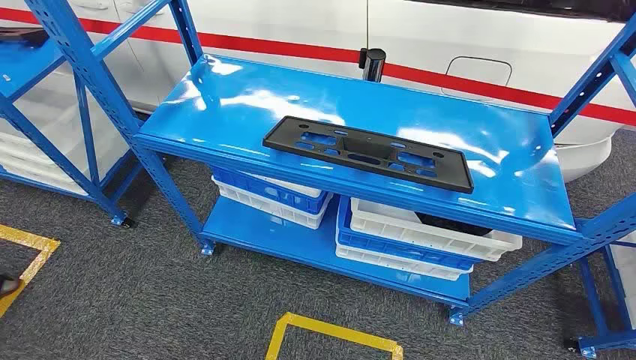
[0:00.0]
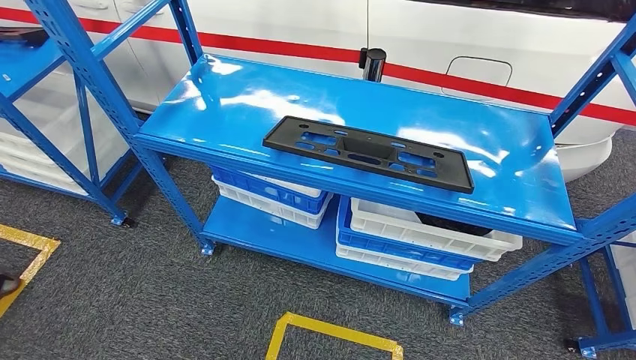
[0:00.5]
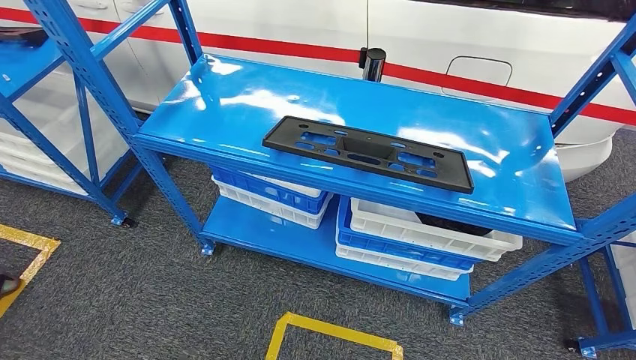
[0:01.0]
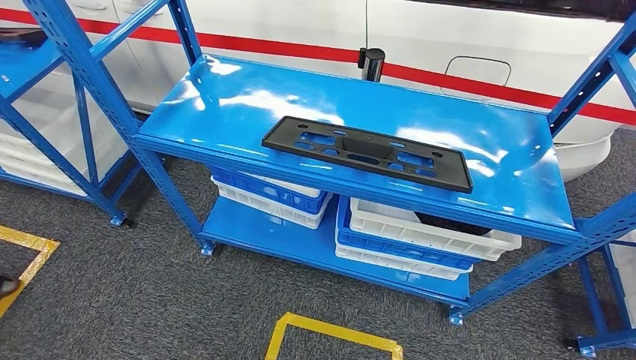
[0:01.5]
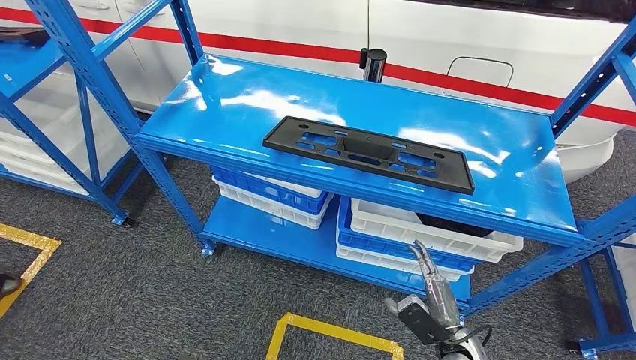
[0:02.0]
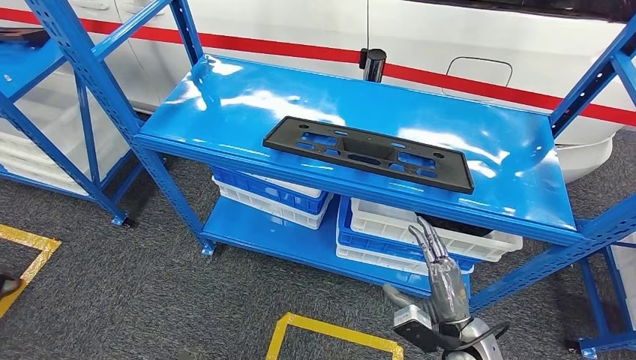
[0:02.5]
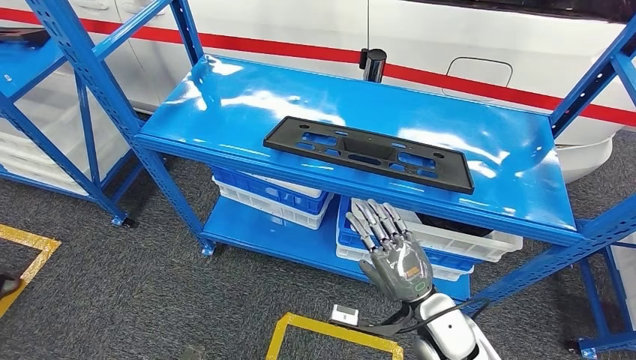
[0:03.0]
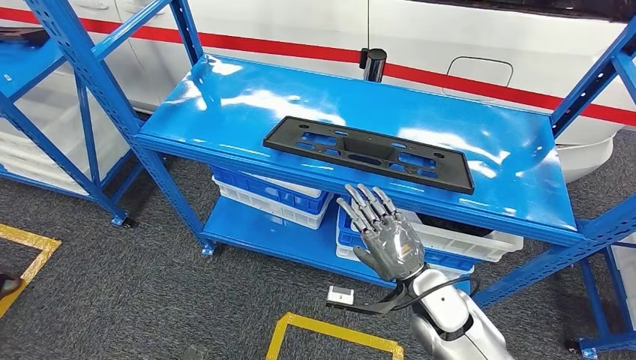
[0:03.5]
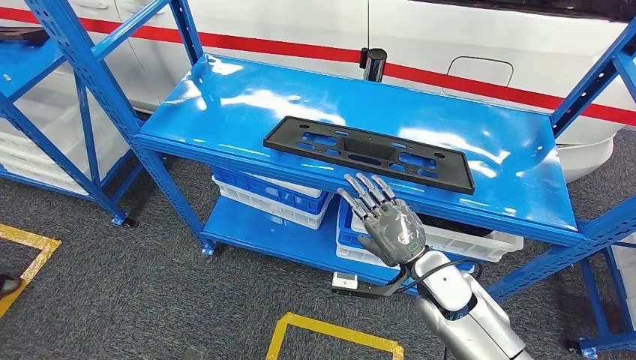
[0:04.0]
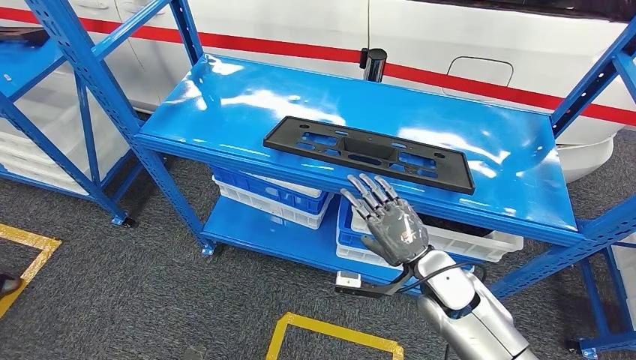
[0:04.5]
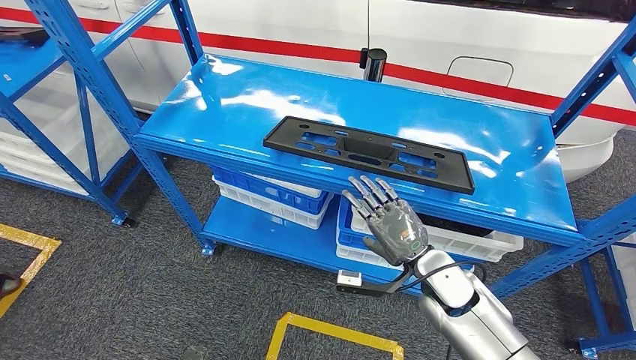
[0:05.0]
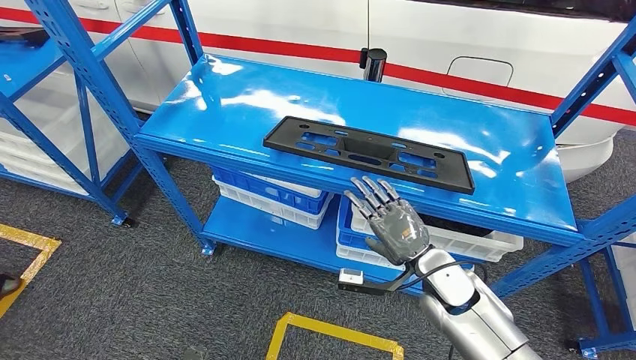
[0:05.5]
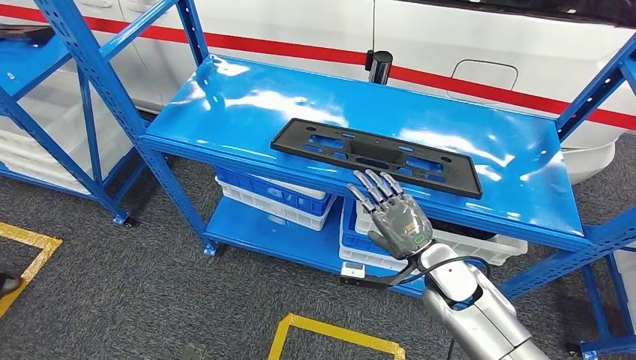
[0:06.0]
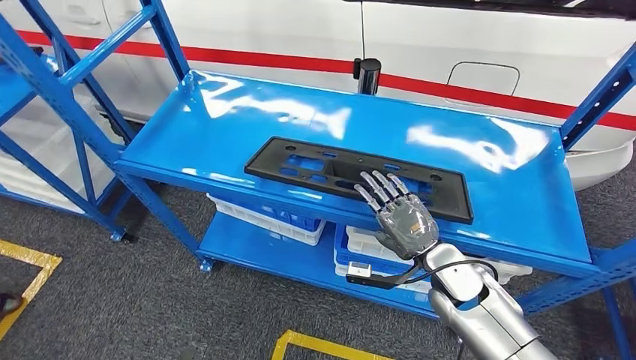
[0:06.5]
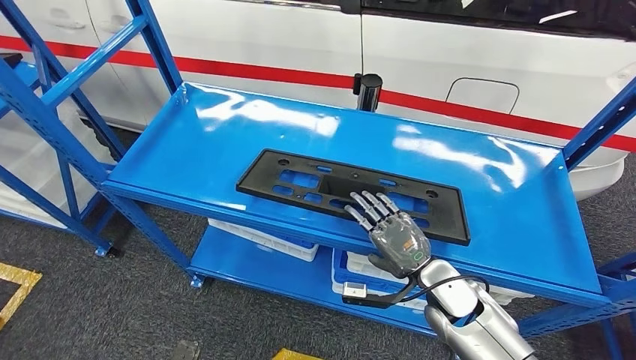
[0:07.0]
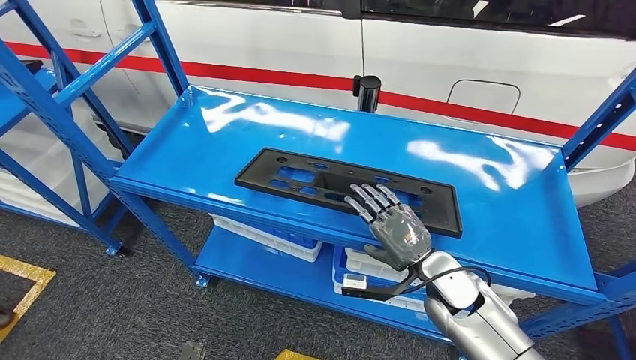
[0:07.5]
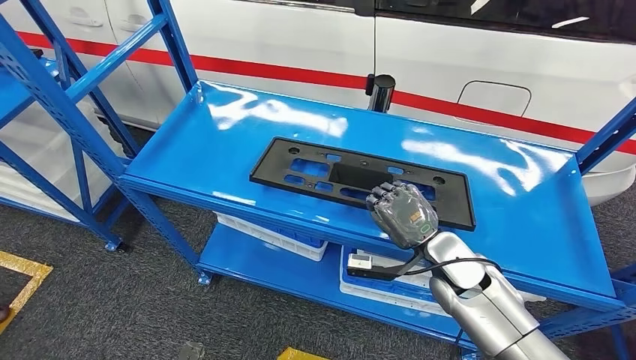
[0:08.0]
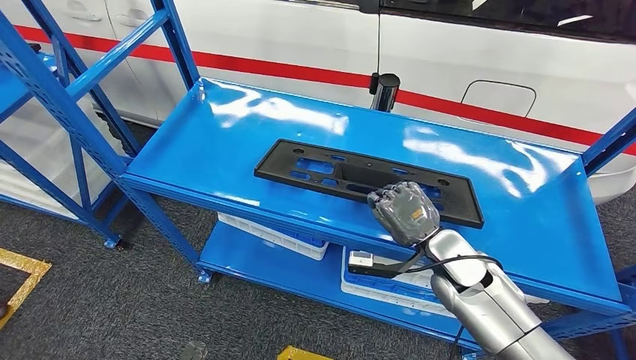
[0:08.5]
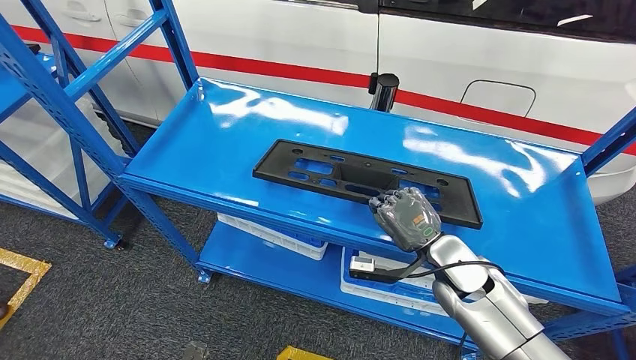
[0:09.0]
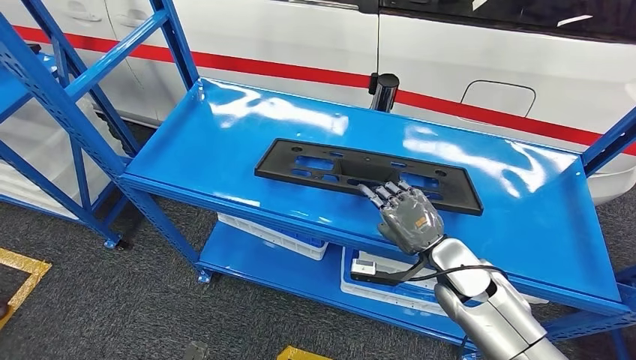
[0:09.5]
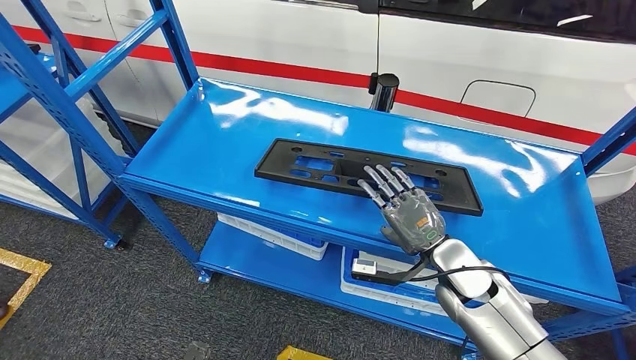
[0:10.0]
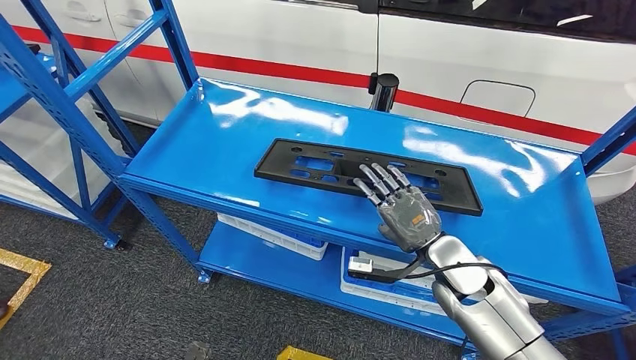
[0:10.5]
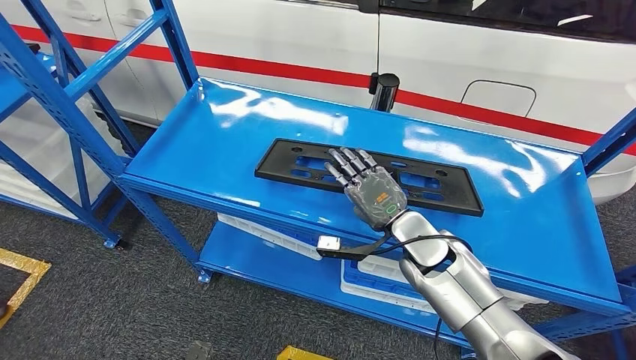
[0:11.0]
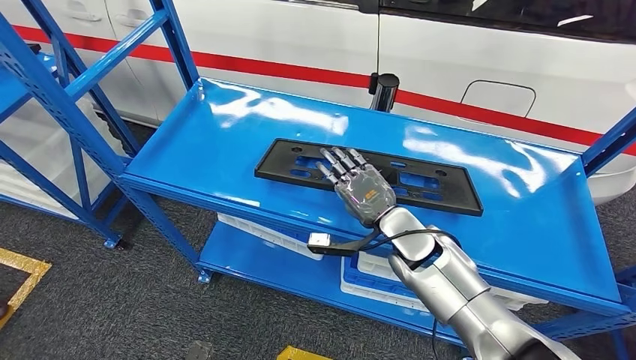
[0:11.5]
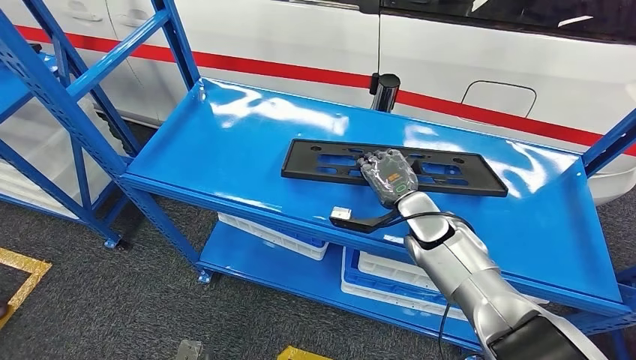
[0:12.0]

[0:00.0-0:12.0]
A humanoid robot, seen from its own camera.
0:02.0 to 0:04.0: The right hand goes some 20 cm upward, forward and to the left.
0:08.0 to 0:10.0: Neither hand changes place.
0:10.0 to 0:12.0: The right hand is displaced forward by approximately 10 cm.

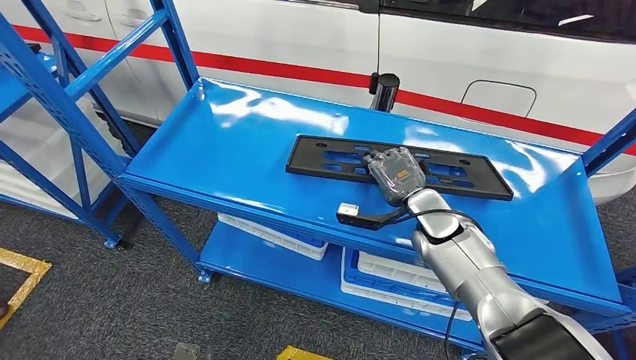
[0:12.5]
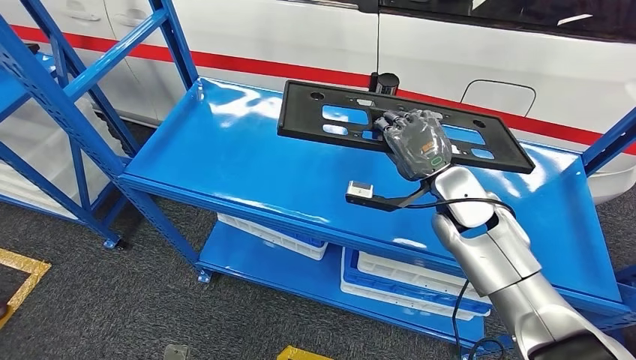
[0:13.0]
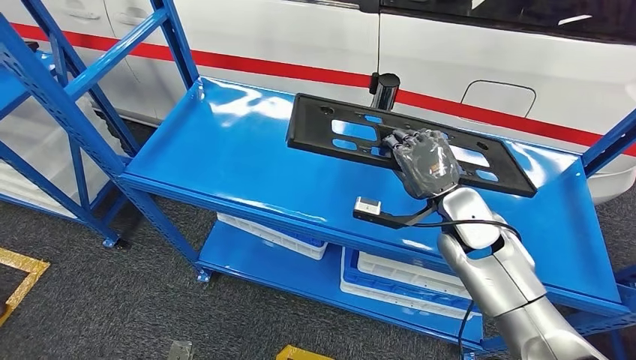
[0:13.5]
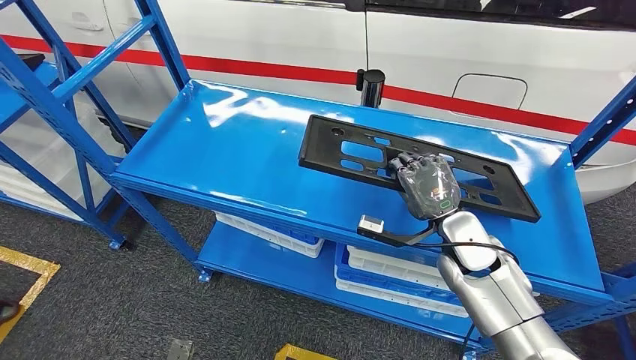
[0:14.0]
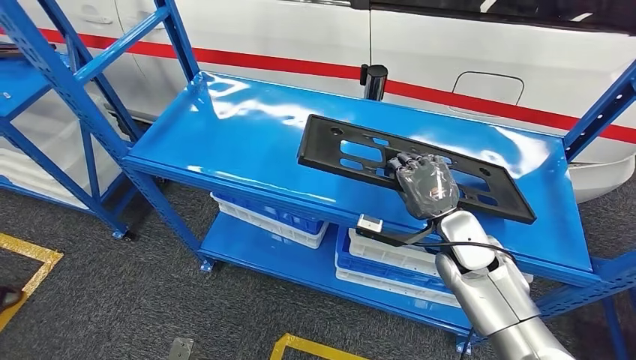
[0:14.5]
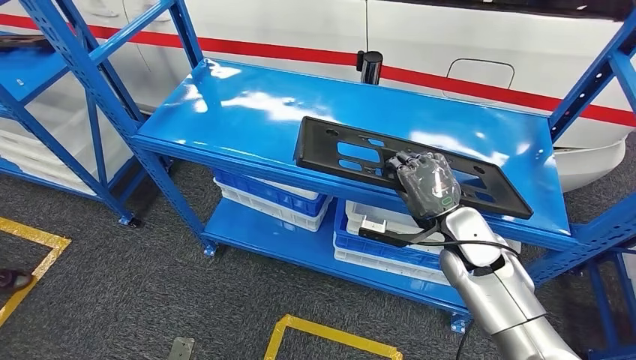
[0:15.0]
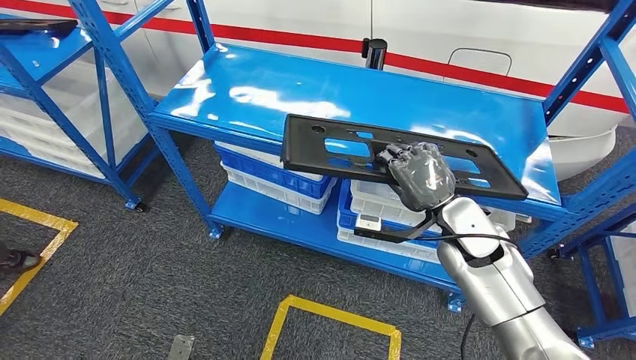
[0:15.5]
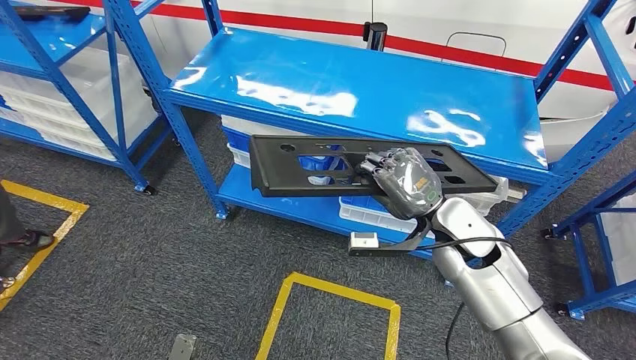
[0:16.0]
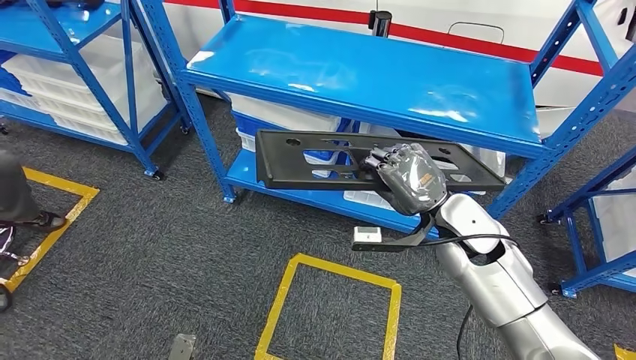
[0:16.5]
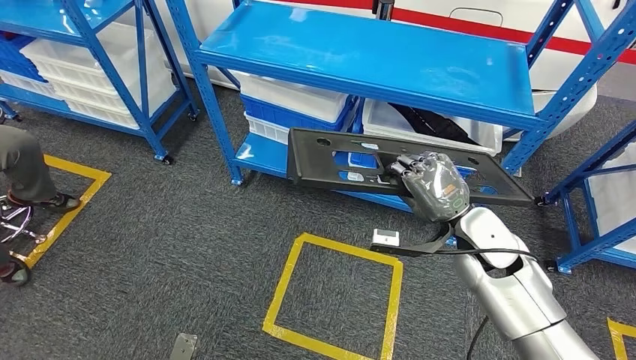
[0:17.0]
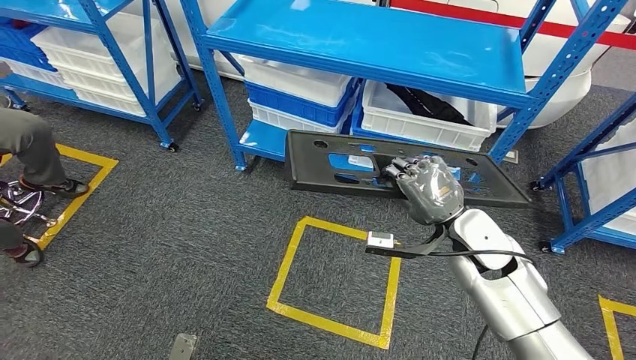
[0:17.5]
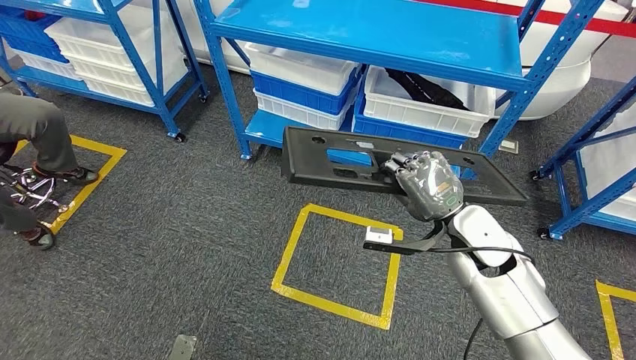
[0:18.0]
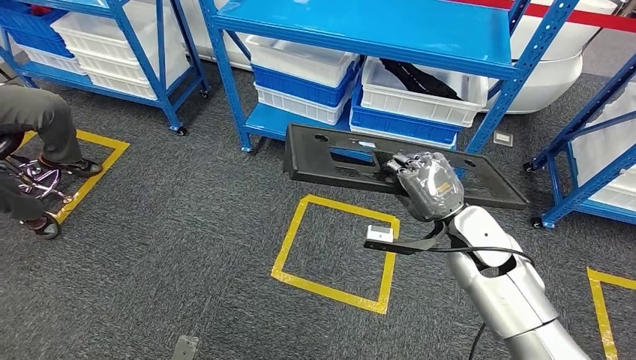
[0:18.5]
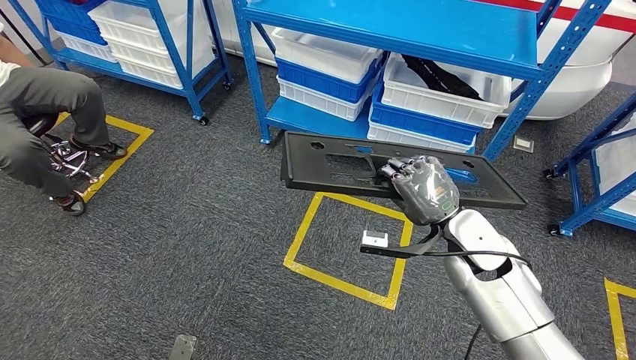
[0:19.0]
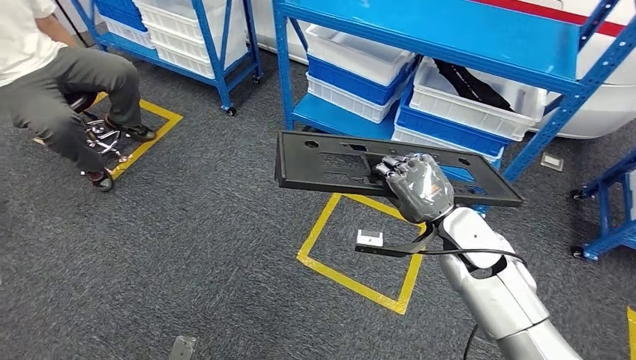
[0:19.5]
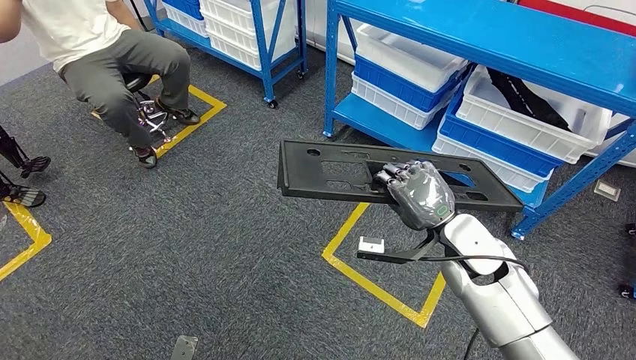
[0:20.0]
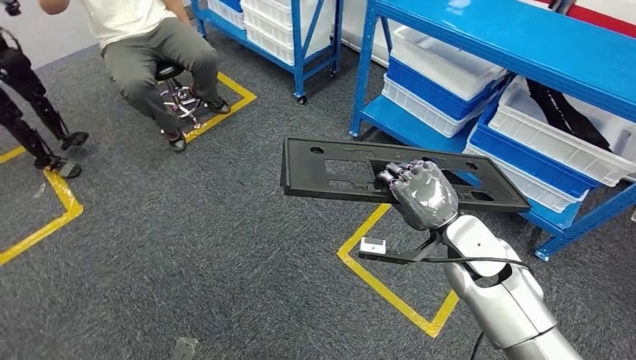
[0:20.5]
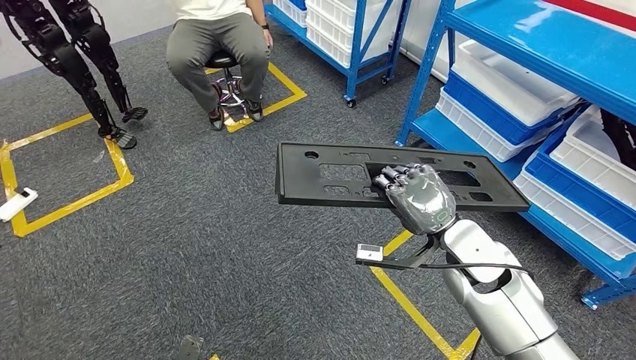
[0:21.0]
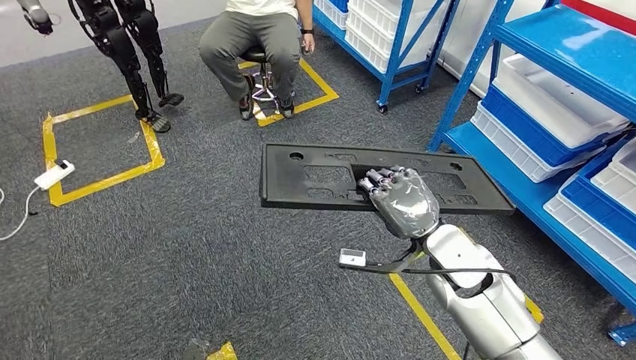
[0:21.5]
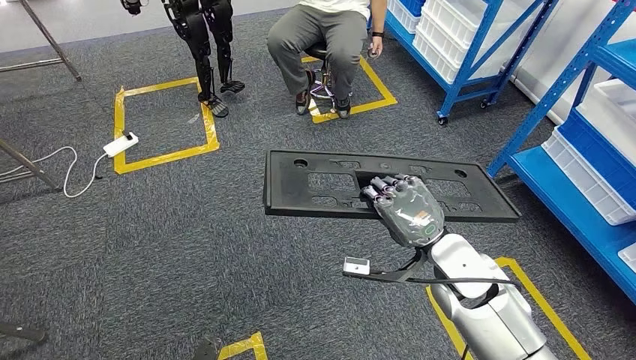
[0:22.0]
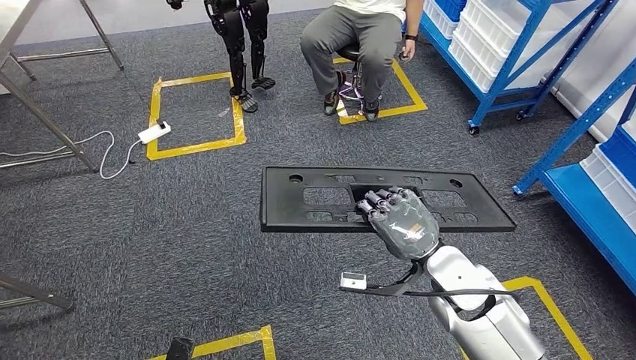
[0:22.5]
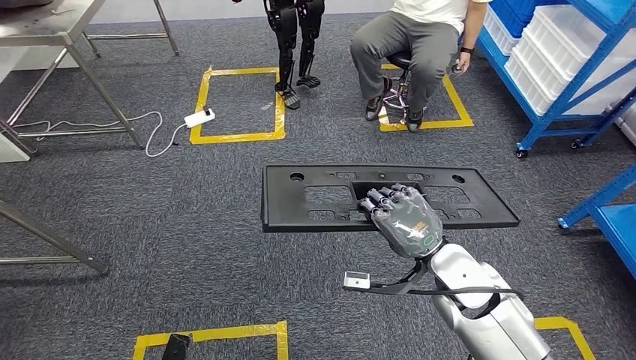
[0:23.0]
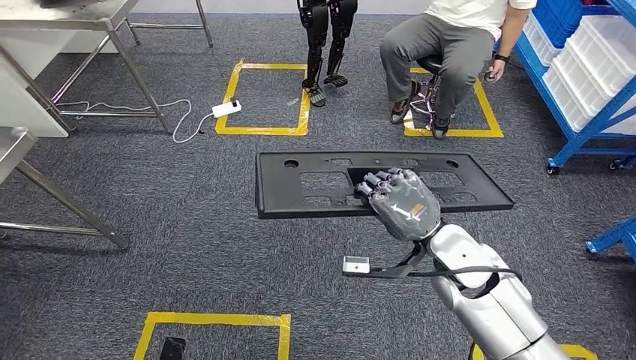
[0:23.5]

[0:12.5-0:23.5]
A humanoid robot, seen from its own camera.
Step, 0:12.5 to 0:16.0: Pick up the large material from the shelf.
